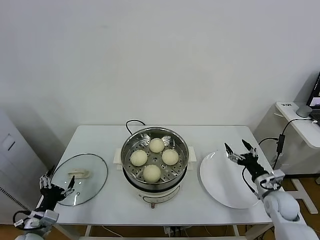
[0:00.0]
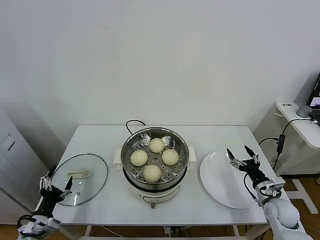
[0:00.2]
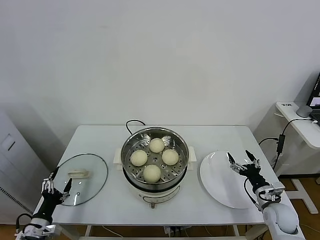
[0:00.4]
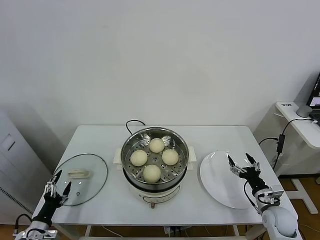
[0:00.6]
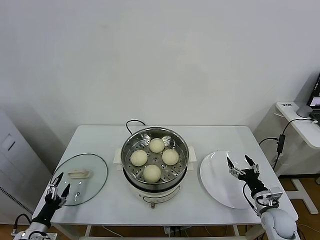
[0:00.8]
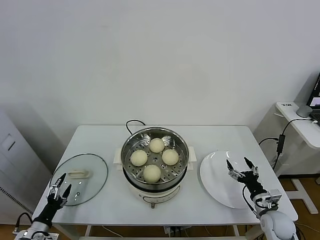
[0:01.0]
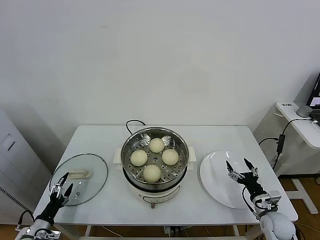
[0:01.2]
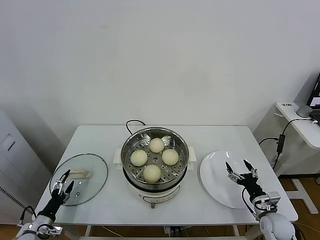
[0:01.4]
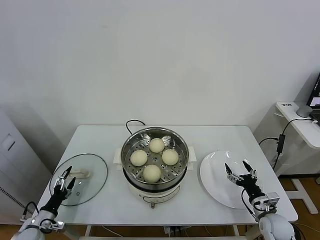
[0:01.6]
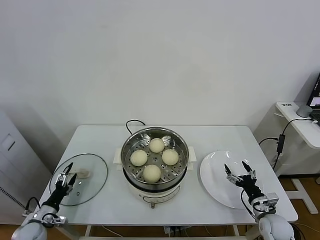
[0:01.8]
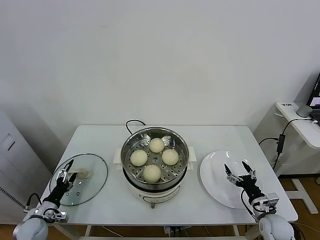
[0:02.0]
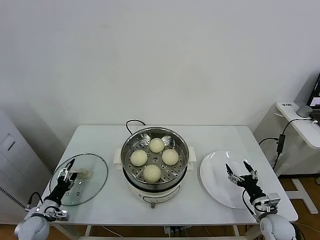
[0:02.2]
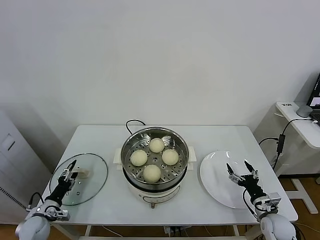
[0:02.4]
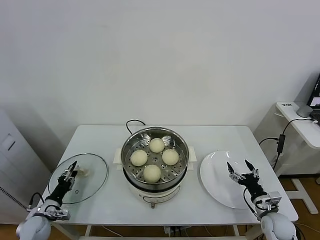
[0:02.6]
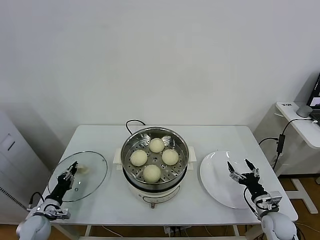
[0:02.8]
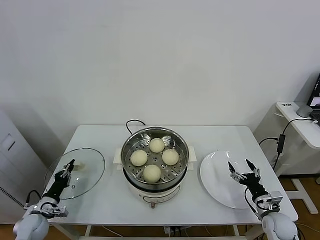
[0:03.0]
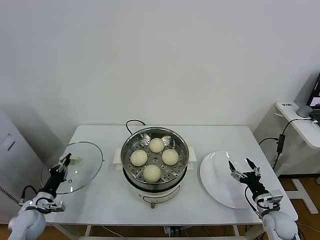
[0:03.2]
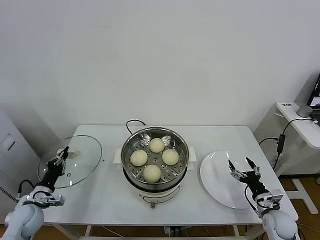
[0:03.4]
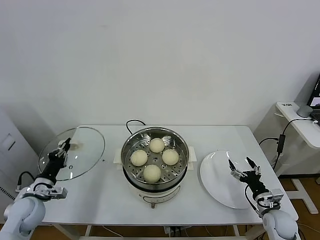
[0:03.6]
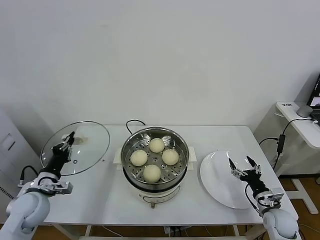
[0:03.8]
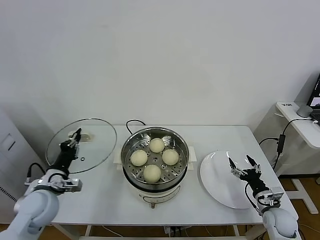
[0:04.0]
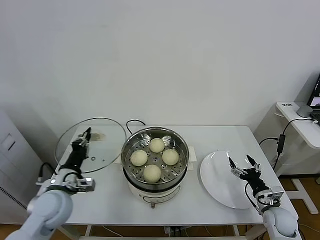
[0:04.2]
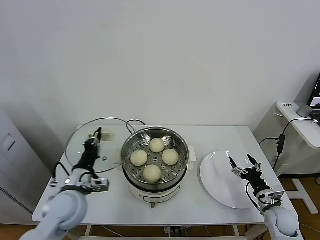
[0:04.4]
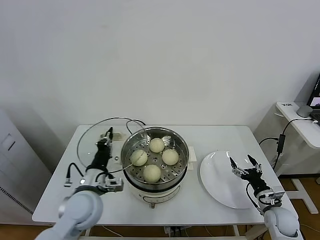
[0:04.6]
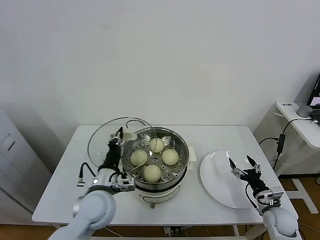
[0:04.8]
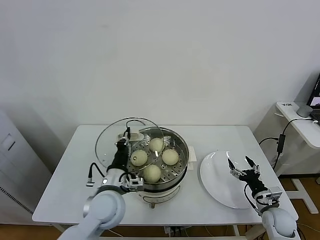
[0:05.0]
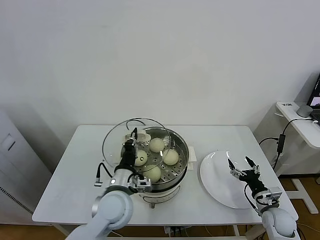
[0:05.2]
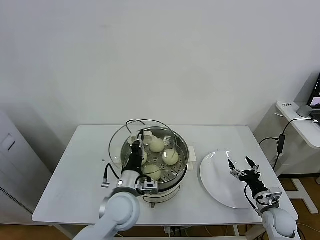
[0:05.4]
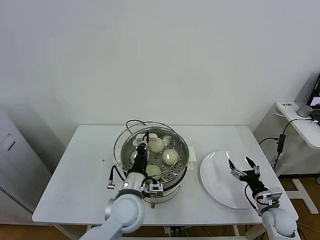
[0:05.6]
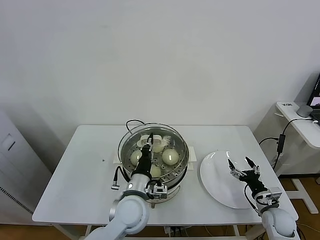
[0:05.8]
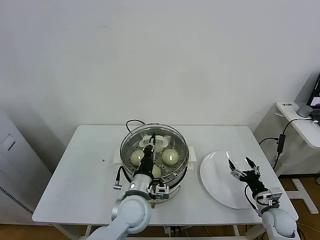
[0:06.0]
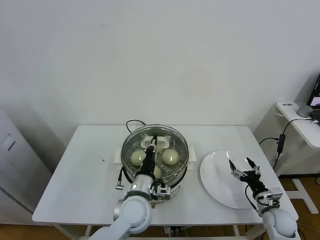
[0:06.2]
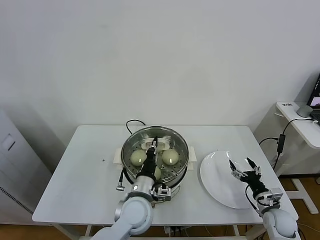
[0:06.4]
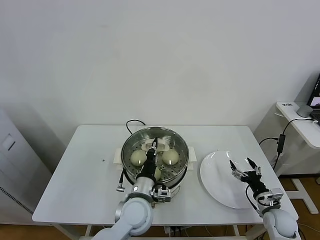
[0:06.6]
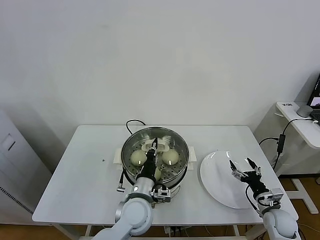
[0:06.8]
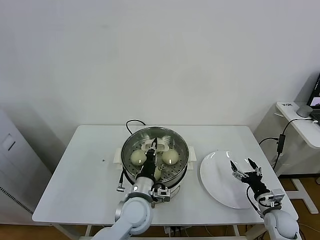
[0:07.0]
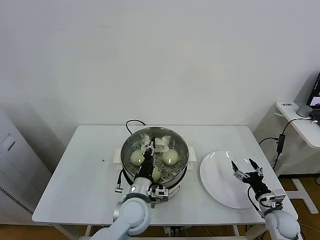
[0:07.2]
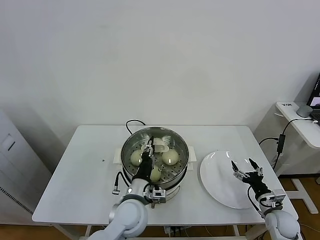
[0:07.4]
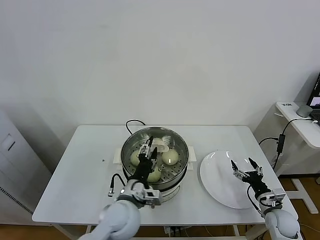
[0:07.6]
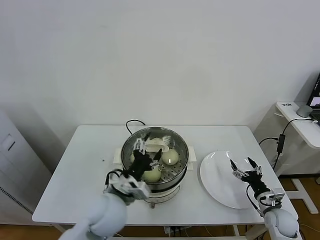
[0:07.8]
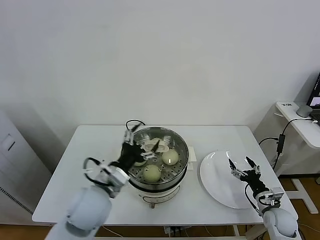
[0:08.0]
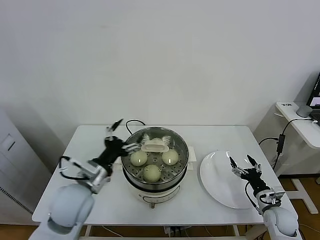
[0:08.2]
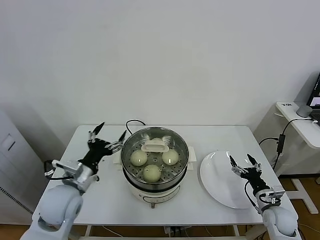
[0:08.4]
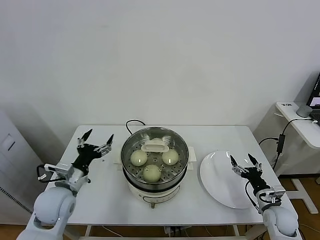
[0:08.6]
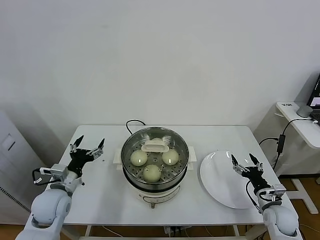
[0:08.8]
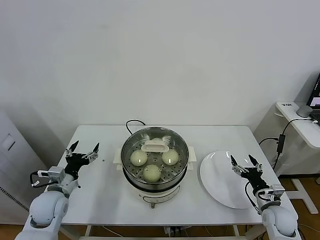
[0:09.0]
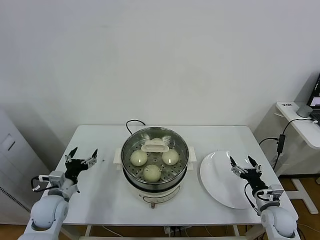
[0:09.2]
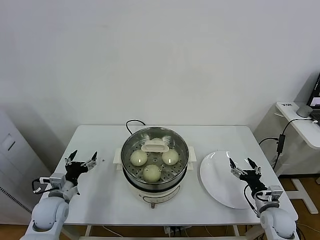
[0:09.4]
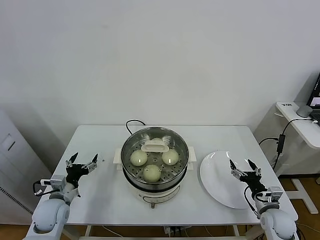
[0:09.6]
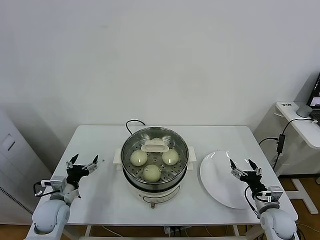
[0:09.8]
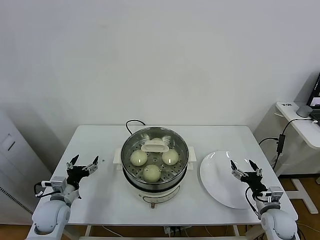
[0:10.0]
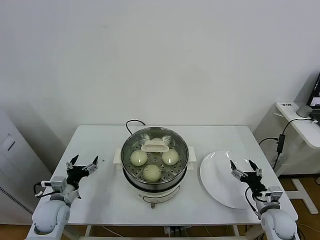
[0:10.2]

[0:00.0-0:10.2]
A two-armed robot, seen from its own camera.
Task of the whole recording: take steamed baozi put them in steamer.
Step, 0:00.0 to 0:03.0: Grasp the pot lid with left gripper.
Step, 0:03.2 to 0:07.8: Place the pot lid on the steamer with left gripper.
0:00.0 to 0:01.4: The left gripper moves downward and to the left, about 15 cm, while the right gripper is displaced downward and backward by some 10 cm.
0:01.4 to 0:03.0: The left gripper is displaced forward by some 5 cm, and closes up.
0:03.0 to 0:04.4: The left gripper goes some 25 cm upward and to the right.
0:04.4 to 0:05.8: The left gripper heads to the right, covering roughly 20 cm.
0:05.8 to 0:07.2: There are only small adjustments of the grippers.
0:07.2 to 0:08.8: The left gripper moves to the left, about 25 cm, and opens up.
0:08.8 to 0:10.2: The left gripper heads downward, covering roughly 10 cm.
